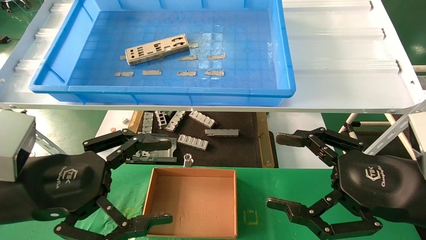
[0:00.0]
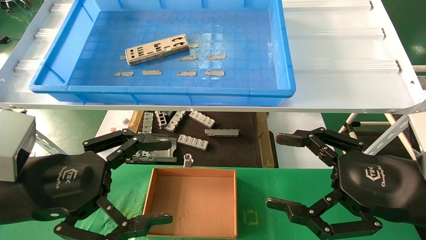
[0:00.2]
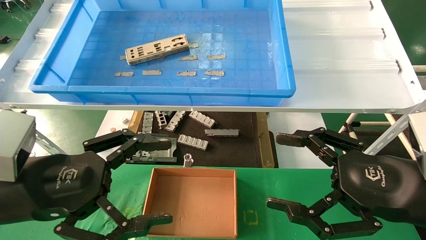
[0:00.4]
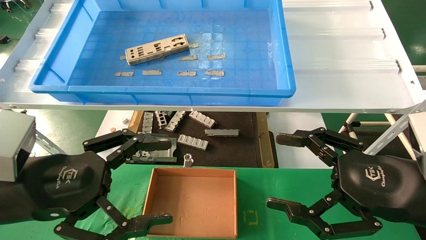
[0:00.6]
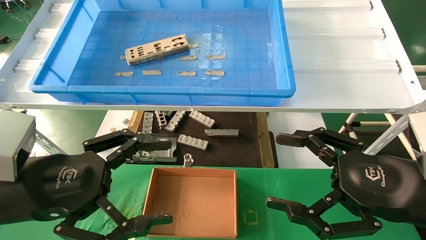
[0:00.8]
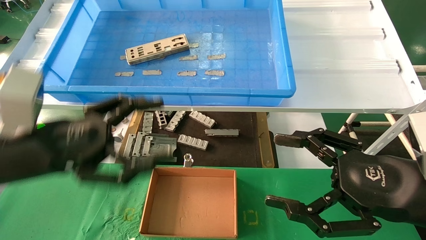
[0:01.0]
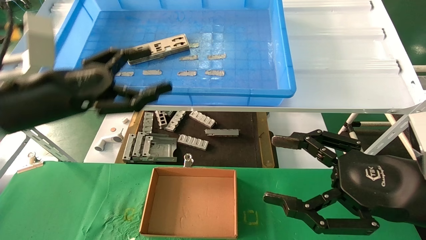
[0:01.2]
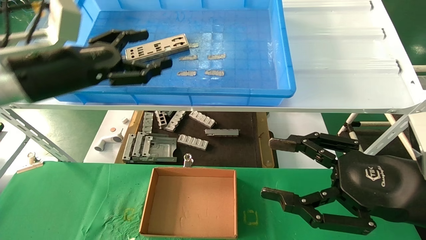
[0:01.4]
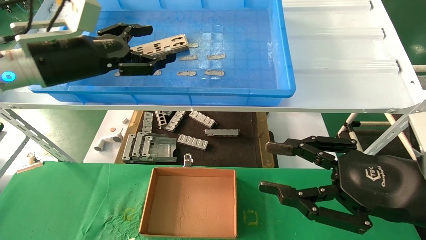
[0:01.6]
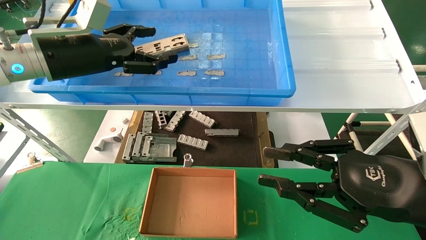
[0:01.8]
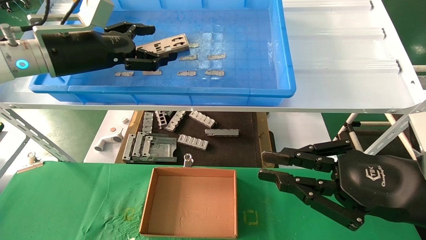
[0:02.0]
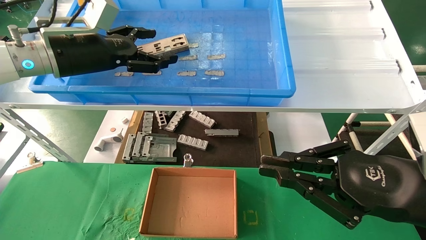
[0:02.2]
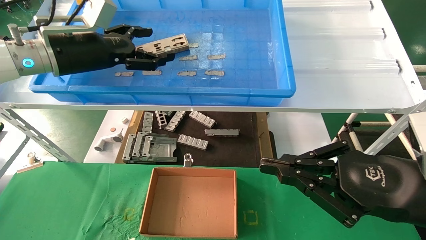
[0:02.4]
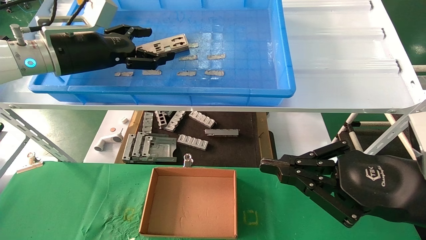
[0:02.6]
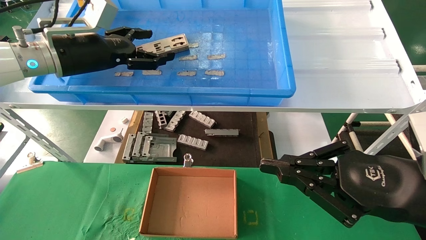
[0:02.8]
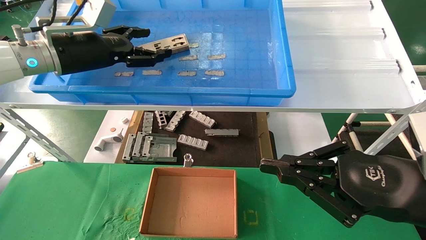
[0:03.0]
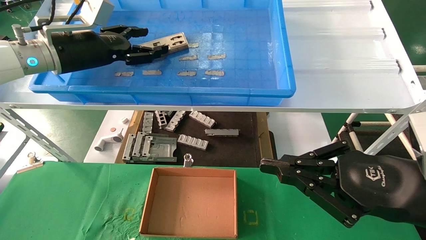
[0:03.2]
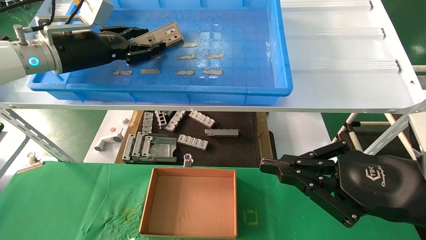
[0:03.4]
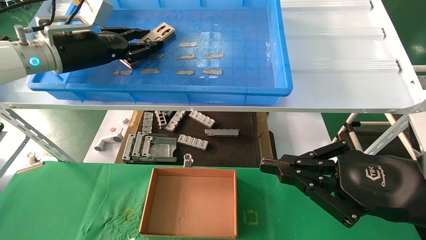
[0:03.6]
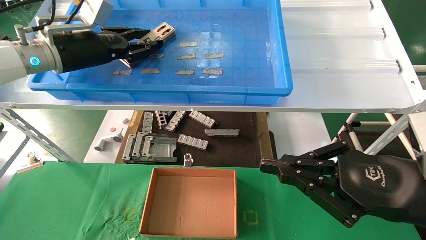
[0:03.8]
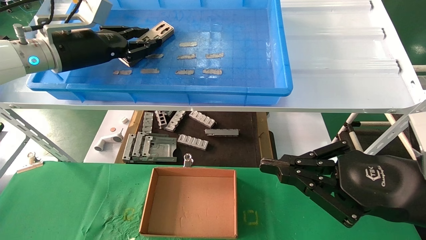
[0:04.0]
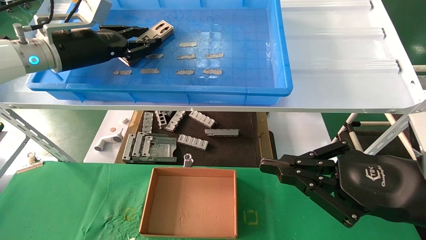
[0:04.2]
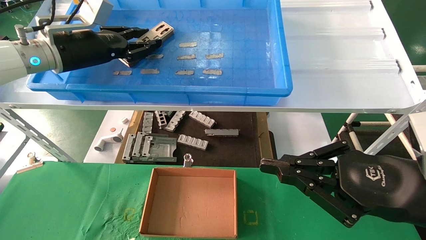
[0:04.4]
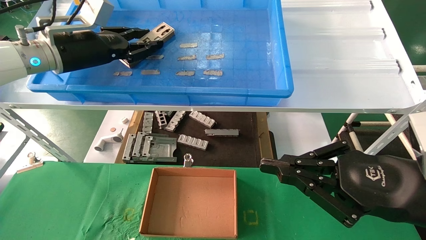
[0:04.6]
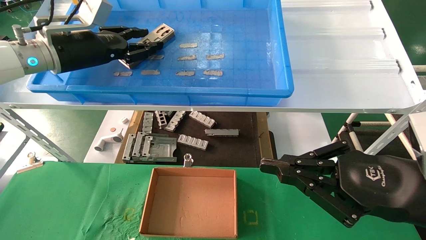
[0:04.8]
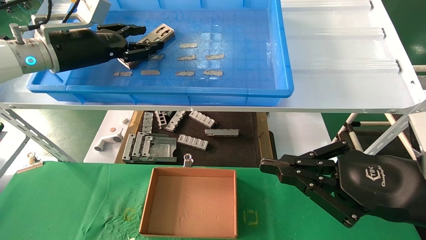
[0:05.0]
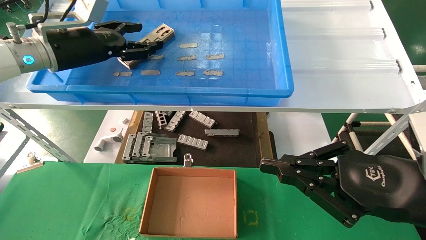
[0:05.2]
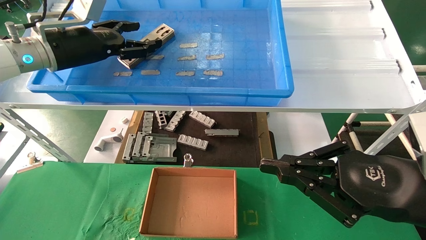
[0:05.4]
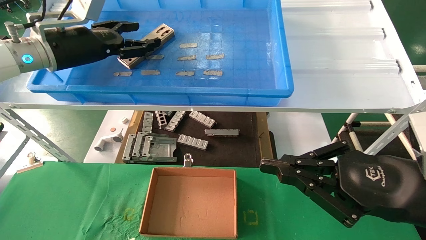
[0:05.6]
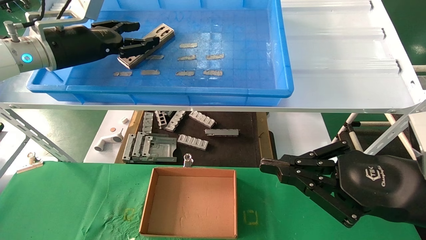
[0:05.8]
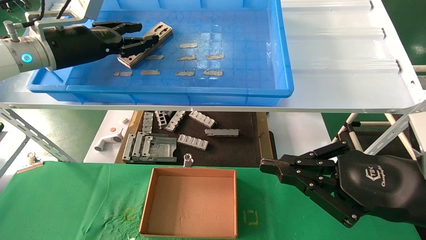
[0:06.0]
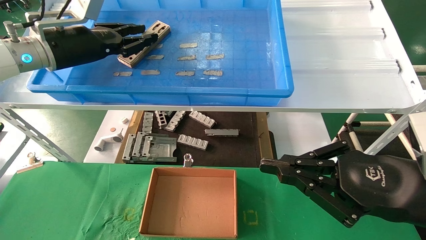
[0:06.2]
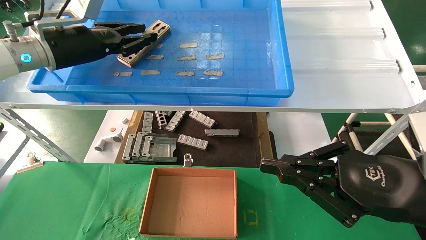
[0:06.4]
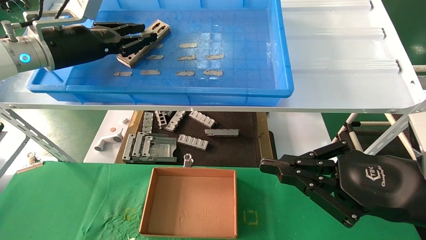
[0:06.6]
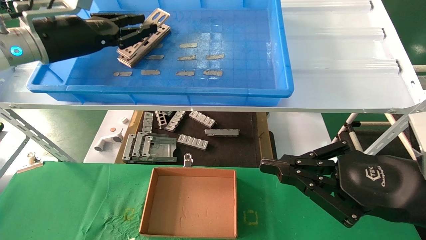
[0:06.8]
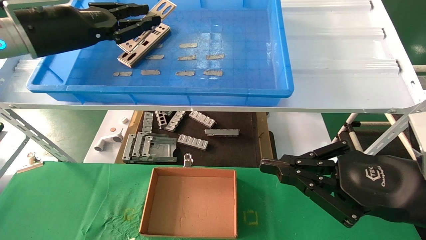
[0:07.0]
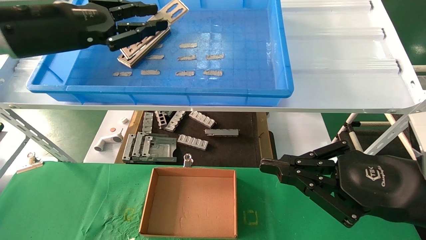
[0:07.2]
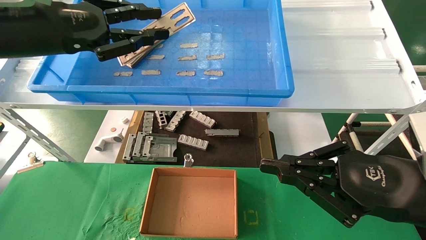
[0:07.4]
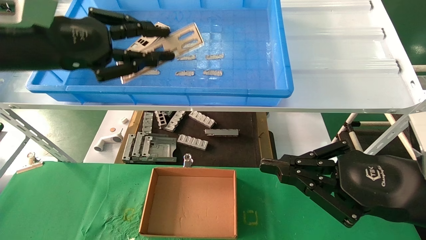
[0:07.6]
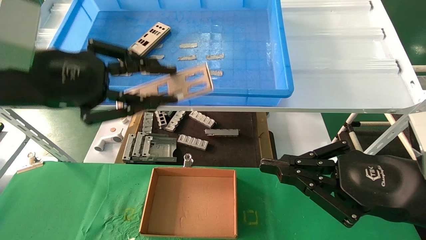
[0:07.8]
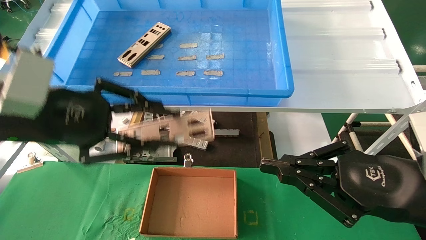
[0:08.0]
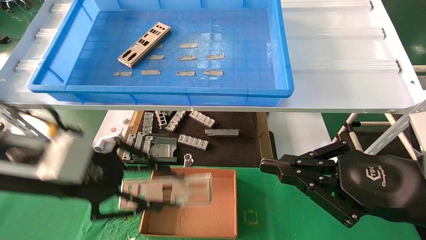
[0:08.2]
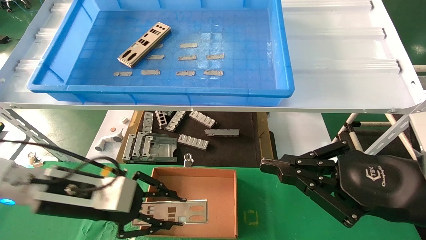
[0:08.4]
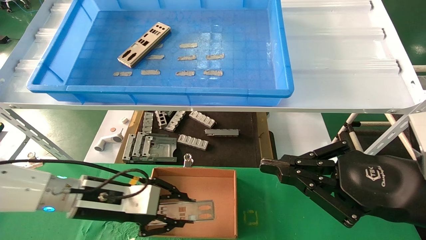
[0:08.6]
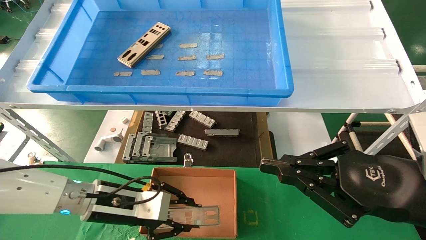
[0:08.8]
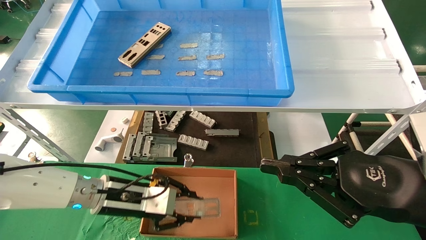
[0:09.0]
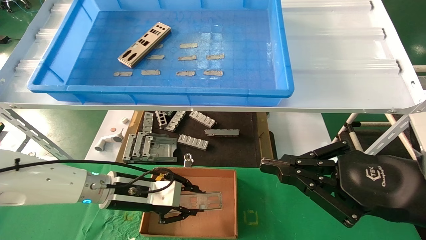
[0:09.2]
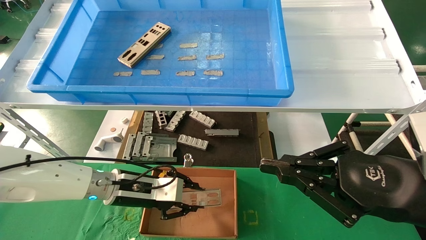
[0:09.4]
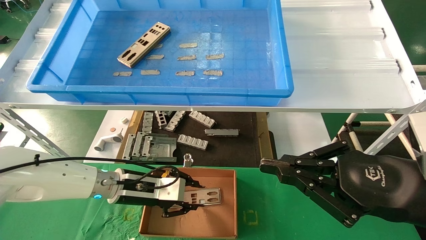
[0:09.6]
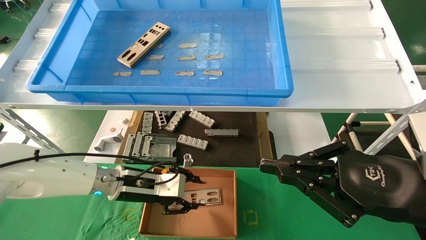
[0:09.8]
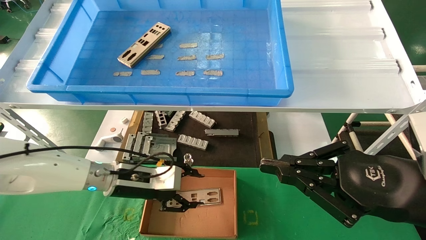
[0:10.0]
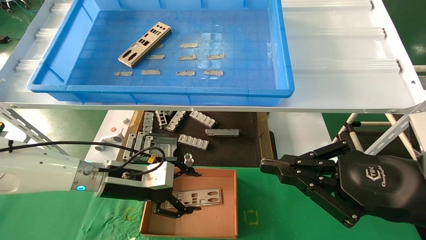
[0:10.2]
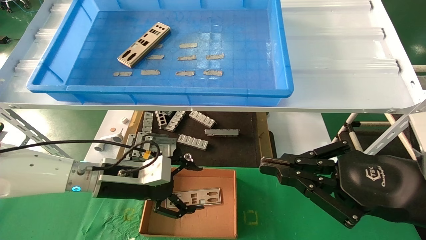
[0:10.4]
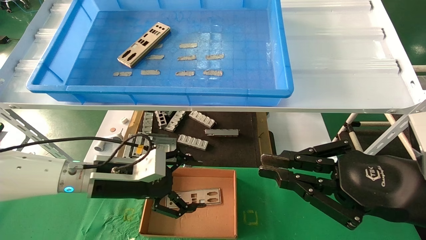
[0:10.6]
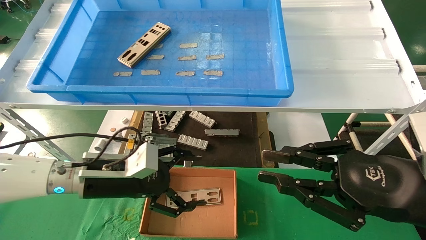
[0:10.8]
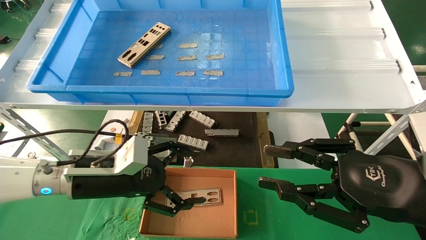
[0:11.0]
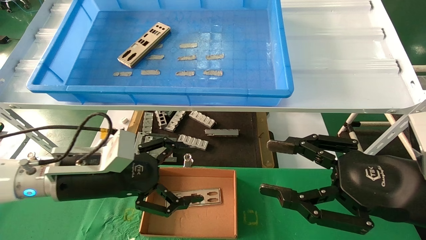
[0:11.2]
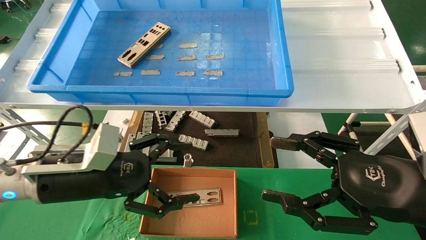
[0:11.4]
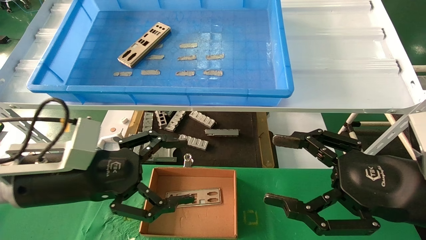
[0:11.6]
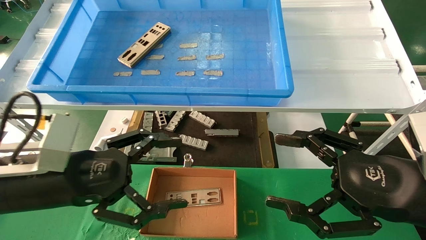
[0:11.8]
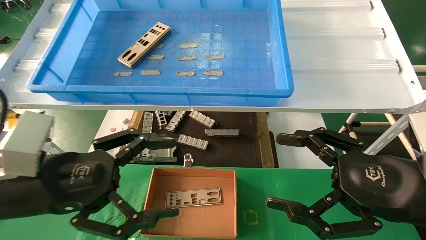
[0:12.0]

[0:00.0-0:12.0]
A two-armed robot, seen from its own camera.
Task of the whole recording: pick up the parts on the tray and put them in the cardboard box.
Step, 0:01.2 to 0:06.4: Pick up the IO bracket from the container box.
Step, 0:06.6 to 0:09.8: Place the IO bracket into the ingredient slot.
0:00.0 to 0:01.6: The left gripper shifts roughly 20 cm forward and upward. Meanwhile the right gripper closes its fingers.
0:01.6 to 0:03.0: The left gripper travels forward by about 5 cm, while the right gripper closes up.
0:03.0 to 0:04.4: The left gripper closes.
0:04.4 to 0:06.0: The left gripper opens up.
0:06.0 to 0:07.6: The left gripper heads backward, covering about 15 cm, and closes up.
0:07.6 to 0:09.0: The left gripper goes some 25 cm downward.
0:09.0 to 0:10.4: The left gripper opens.
0:10.4 to 0:12.0: The left gripper goes some 15 cm backward and upward; the right gripper opens.

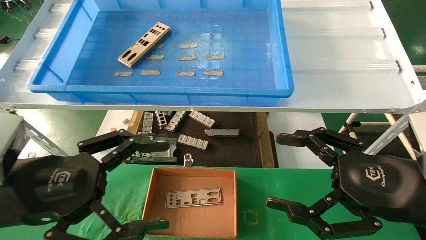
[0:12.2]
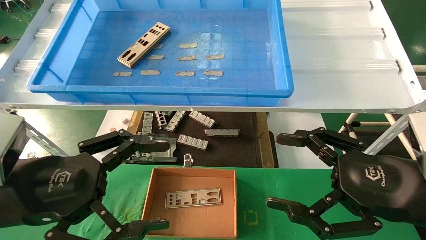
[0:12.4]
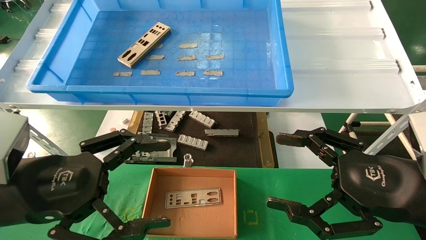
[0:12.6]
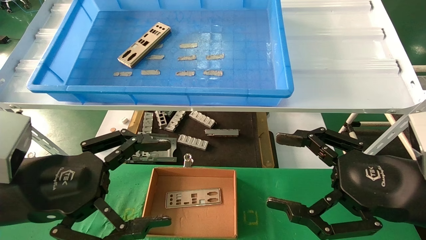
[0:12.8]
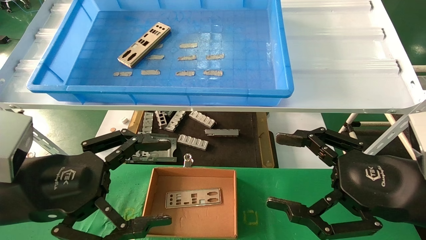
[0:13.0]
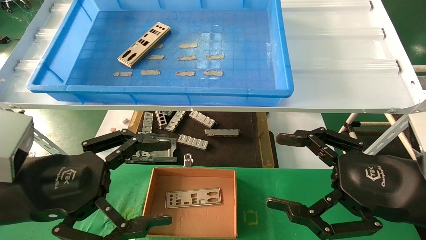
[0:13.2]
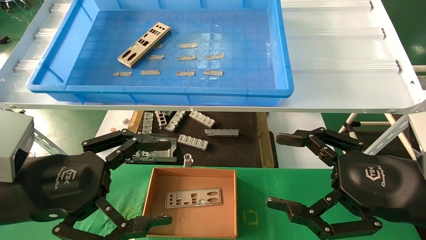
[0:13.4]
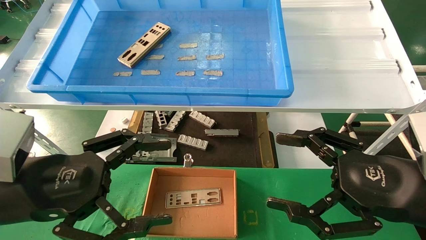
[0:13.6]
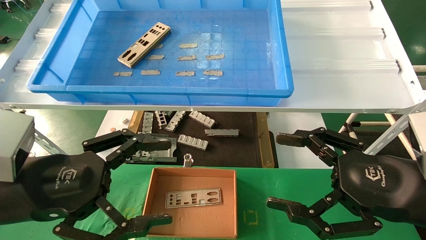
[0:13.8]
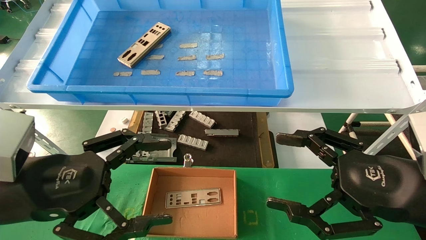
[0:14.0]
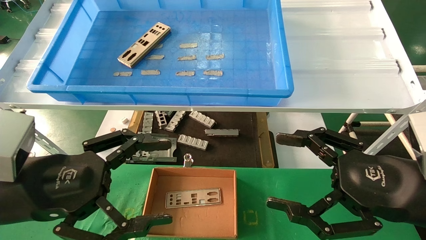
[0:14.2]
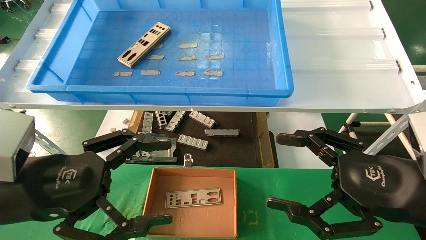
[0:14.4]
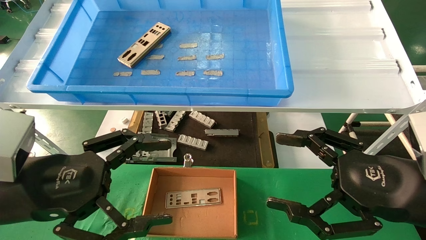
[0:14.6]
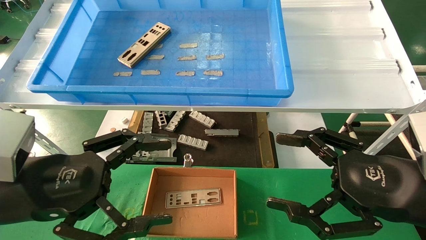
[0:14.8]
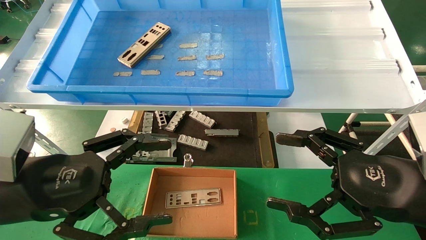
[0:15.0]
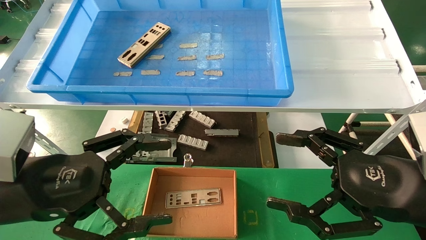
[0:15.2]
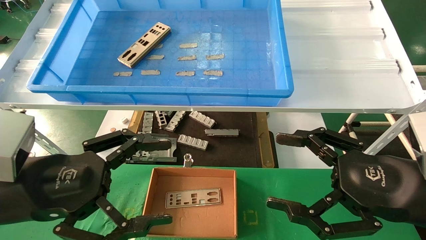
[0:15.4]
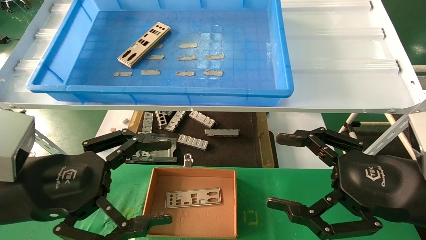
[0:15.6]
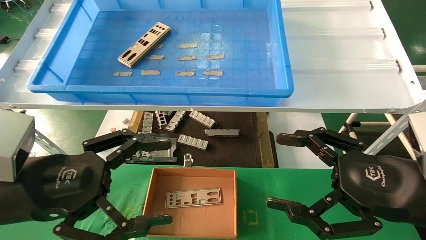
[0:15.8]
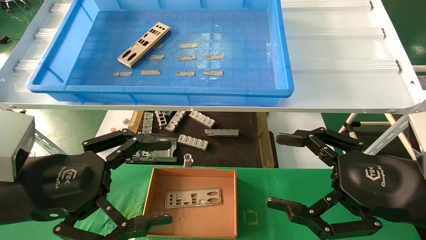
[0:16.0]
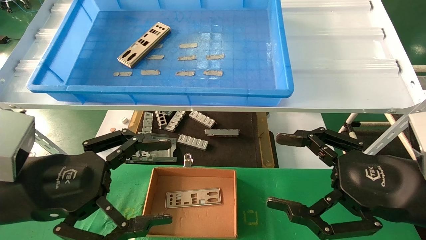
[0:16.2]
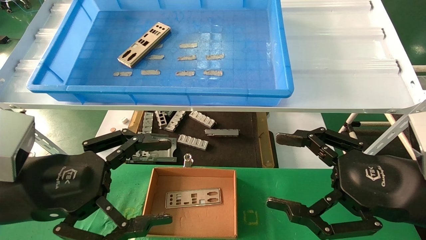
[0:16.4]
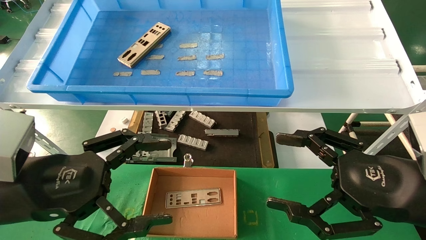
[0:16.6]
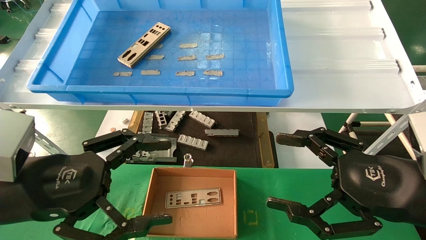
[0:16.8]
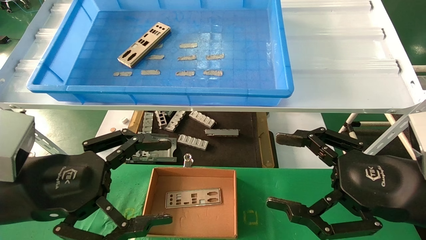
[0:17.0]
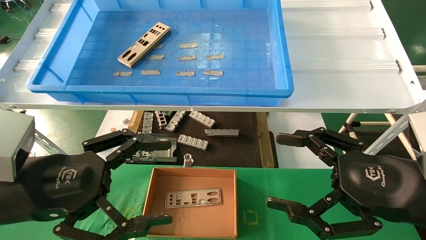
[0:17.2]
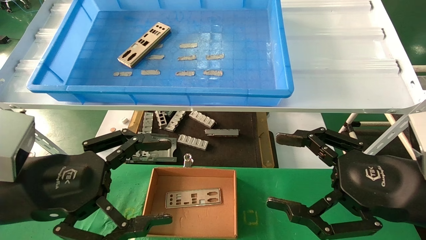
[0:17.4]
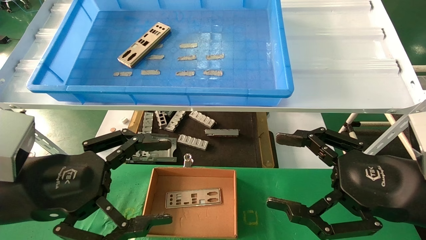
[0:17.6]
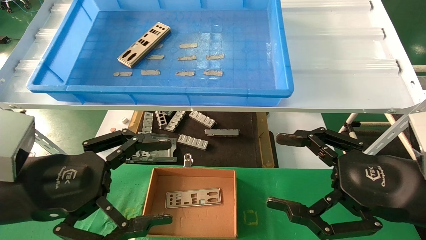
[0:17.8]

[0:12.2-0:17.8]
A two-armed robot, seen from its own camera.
Task of the whole recording: pick up the parts on the tray and put them in the cardboard box.
0:12.2 to 0:17.8: Neither gripper changes place.
